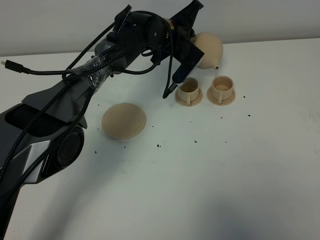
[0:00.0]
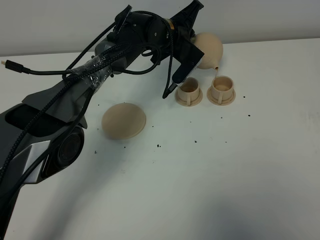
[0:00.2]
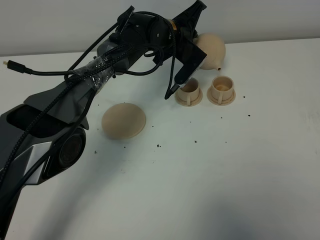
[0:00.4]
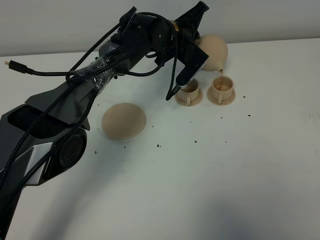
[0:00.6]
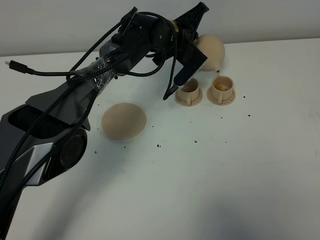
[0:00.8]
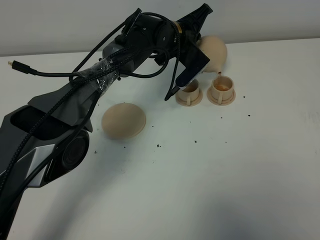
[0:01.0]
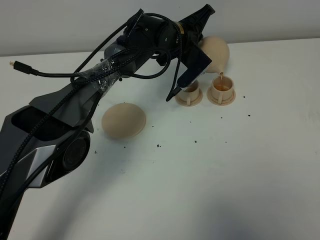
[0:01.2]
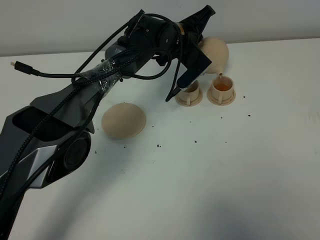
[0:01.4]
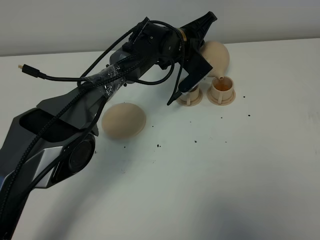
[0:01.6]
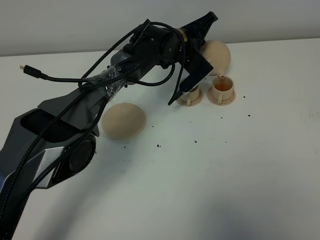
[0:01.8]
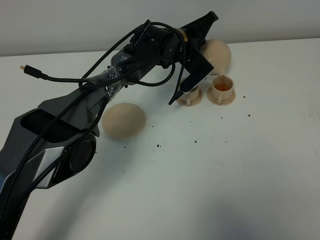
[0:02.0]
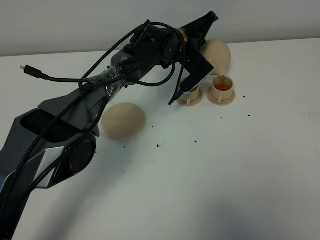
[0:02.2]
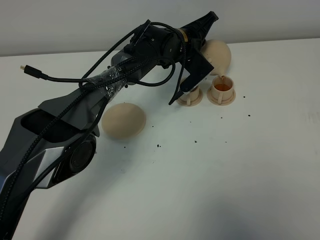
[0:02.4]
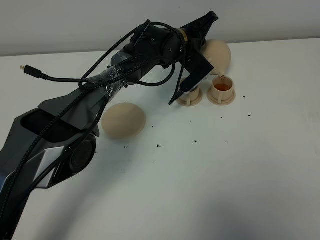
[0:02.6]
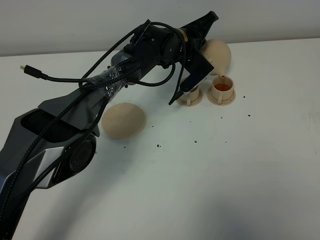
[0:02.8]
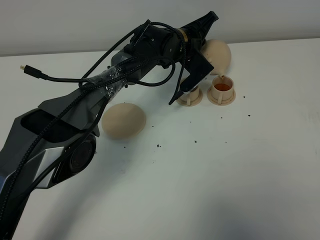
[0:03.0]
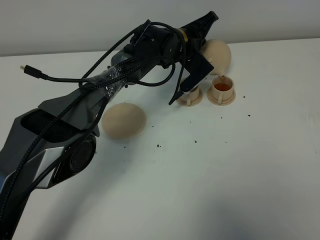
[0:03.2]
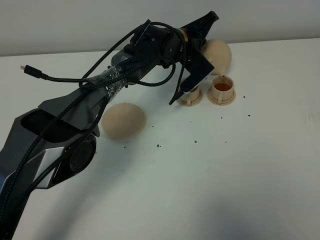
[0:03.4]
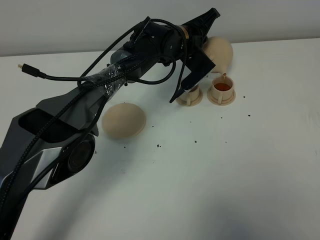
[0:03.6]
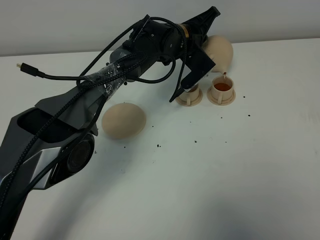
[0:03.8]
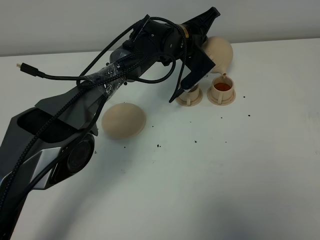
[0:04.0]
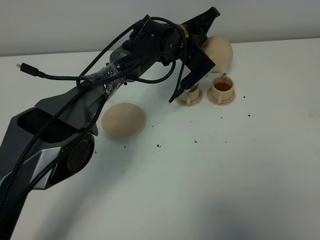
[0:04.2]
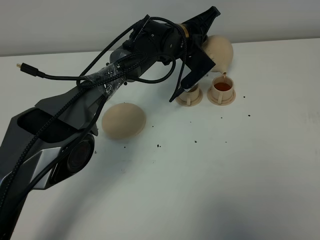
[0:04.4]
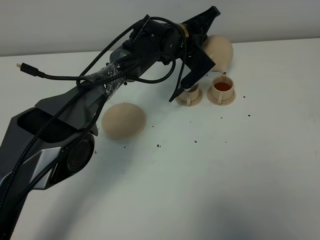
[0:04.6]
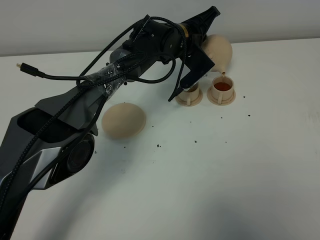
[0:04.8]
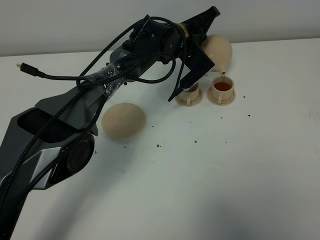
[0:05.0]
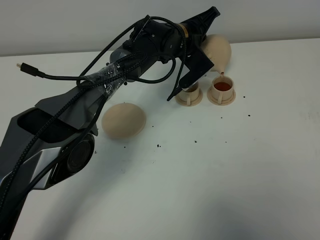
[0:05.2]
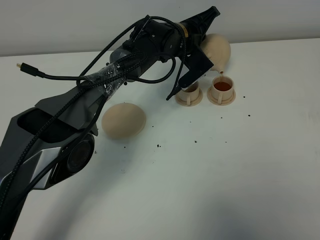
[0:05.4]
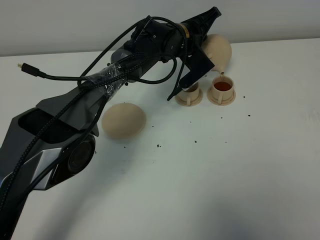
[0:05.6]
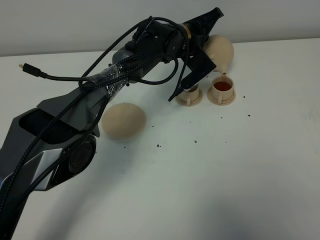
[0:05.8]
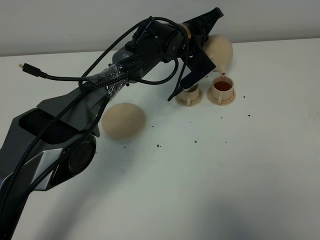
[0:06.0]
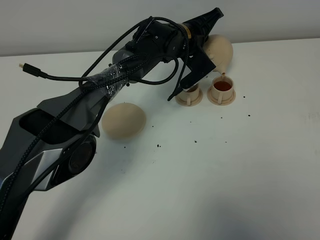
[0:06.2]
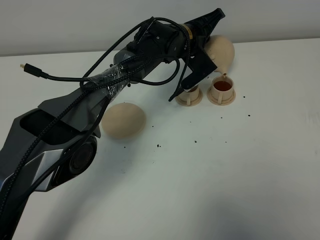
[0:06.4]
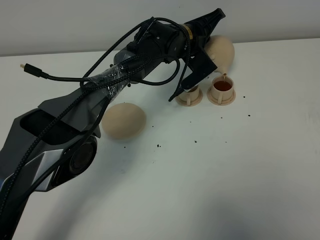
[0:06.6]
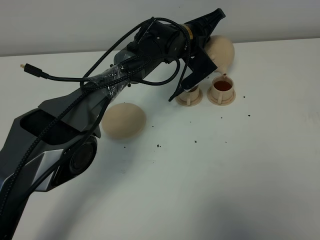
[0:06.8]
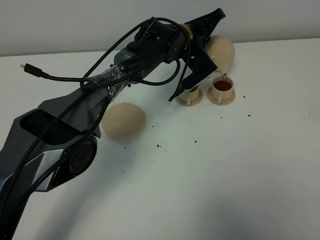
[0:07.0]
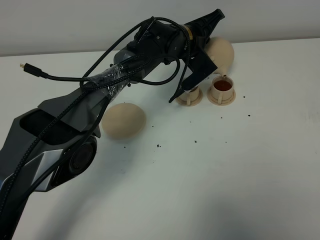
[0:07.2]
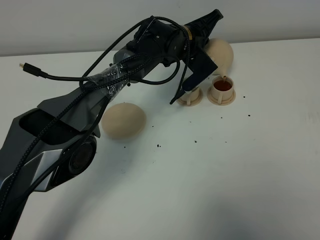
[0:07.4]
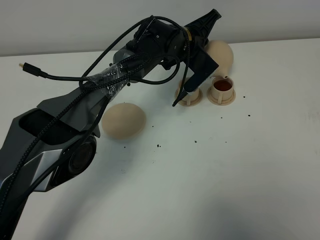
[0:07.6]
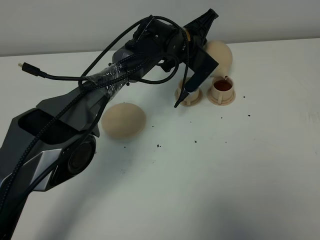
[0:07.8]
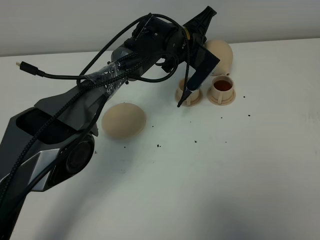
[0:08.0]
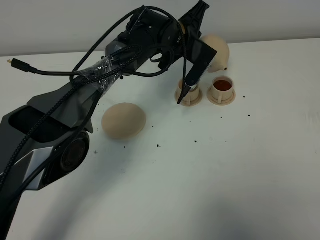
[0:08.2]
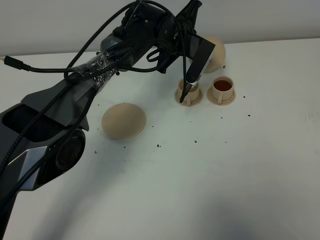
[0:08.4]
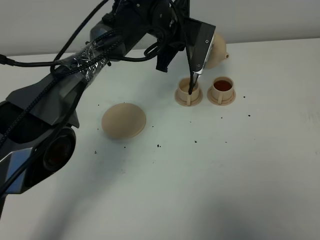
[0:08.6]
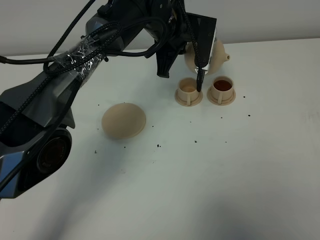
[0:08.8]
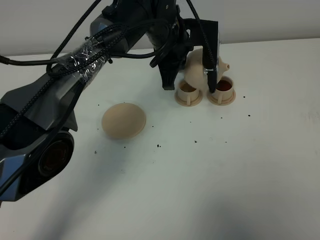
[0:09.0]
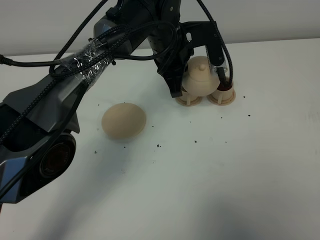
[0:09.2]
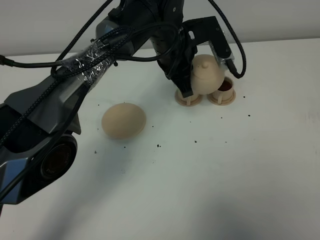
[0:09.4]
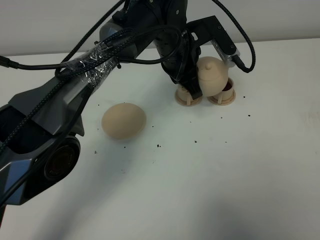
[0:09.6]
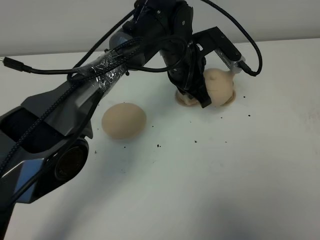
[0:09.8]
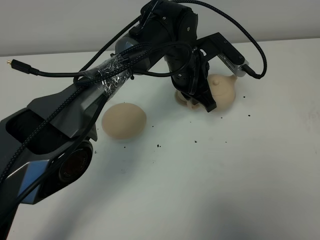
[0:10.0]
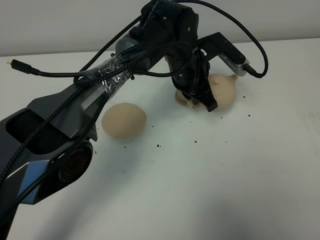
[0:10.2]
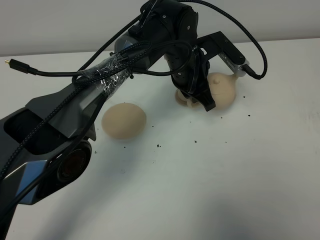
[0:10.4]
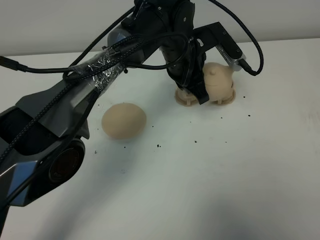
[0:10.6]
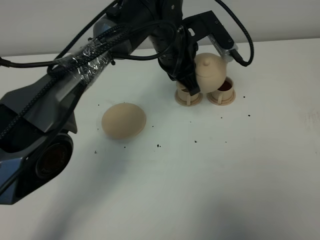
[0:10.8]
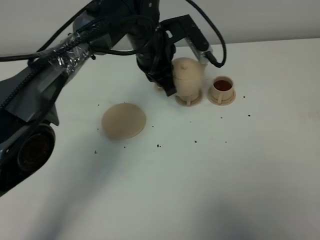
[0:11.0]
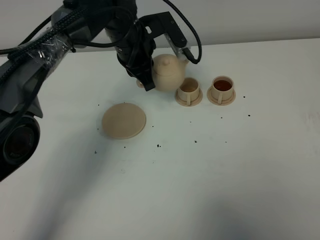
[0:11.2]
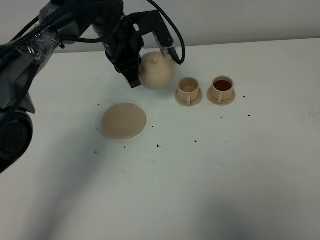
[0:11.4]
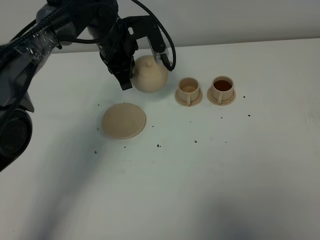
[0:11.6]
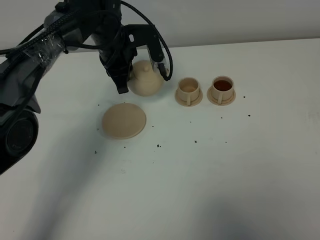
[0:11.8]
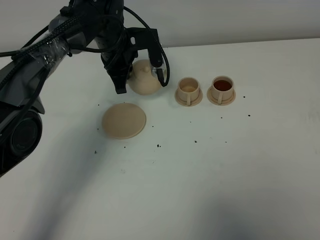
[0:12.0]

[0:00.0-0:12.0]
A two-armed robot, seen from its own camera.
Task of the whole recording: grasp the brown teapot and pour the tea into the two brown teacups one by one, put the brown teapot back in its original place.
0:00.0 to 0:01.6: The grippers make only small movements.
0:01.6 to 0:04.4: The two grippers keep their place.
0:04.4 to 0:06.0: Both grippers stay about where they are.
0:06.0 to 0:07.6: The grippers stay close to where they were, moving slightly.
0:07.6 to 0:09.0: The left gripper shifts approximately 10 cm upward and backward.
0:09.0 to 0:10.4: The left gripper shifts by some 5 cm.
0:10.4 to 0:12.0: The left gripper goes about 15 cm to the left and forward.

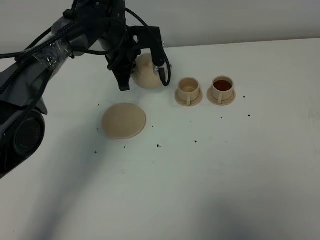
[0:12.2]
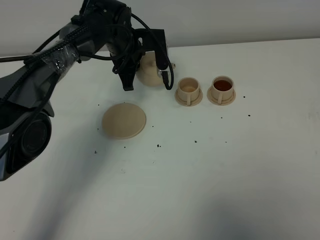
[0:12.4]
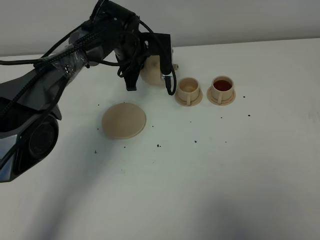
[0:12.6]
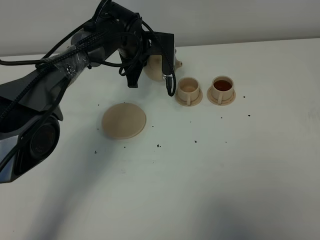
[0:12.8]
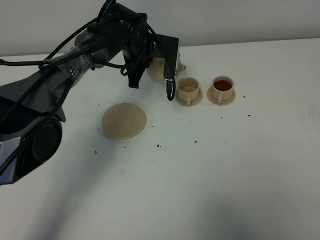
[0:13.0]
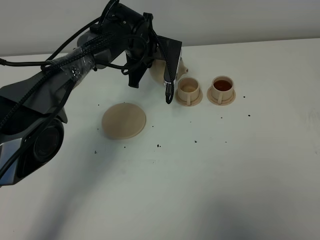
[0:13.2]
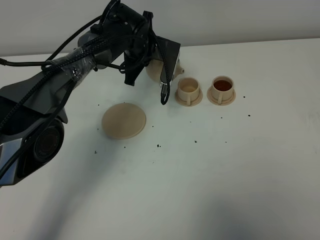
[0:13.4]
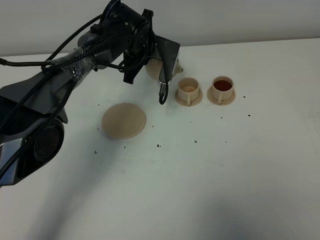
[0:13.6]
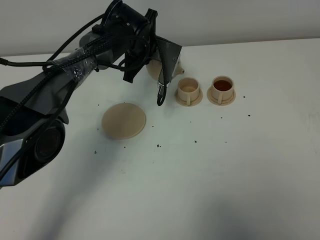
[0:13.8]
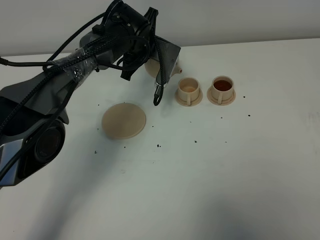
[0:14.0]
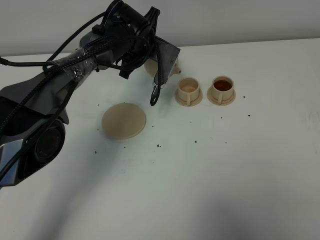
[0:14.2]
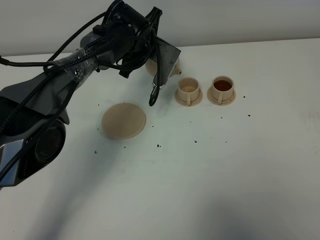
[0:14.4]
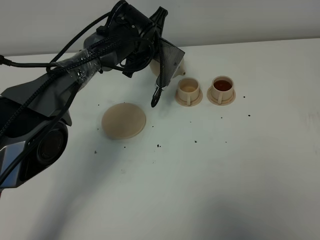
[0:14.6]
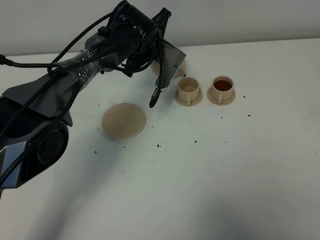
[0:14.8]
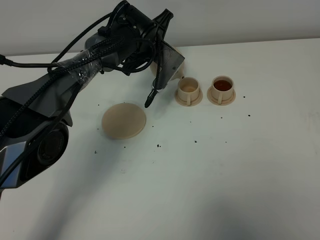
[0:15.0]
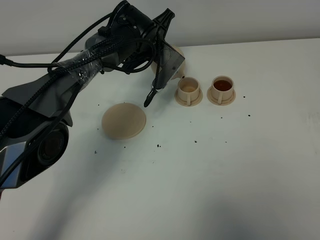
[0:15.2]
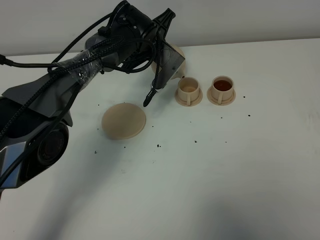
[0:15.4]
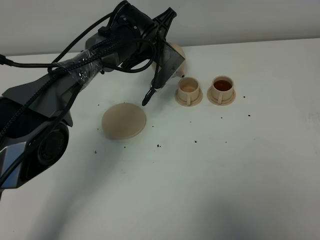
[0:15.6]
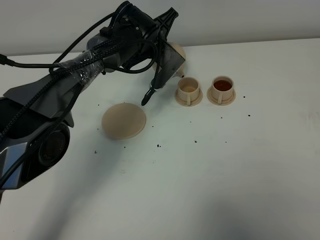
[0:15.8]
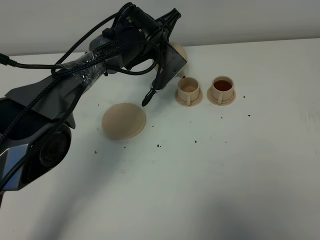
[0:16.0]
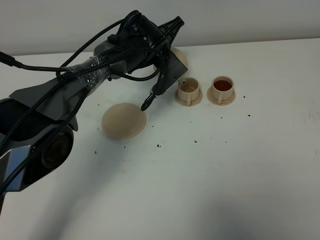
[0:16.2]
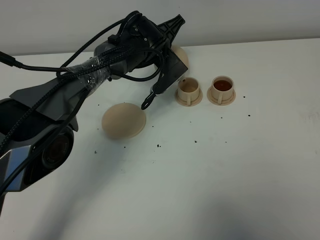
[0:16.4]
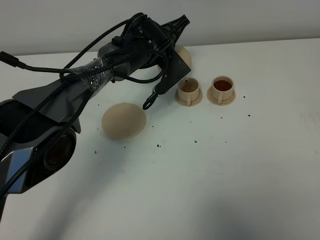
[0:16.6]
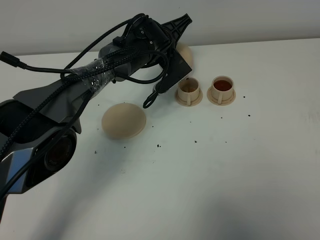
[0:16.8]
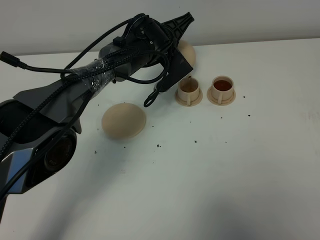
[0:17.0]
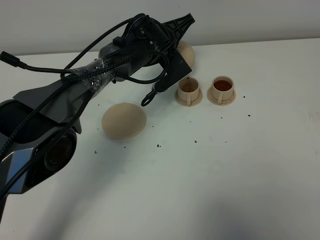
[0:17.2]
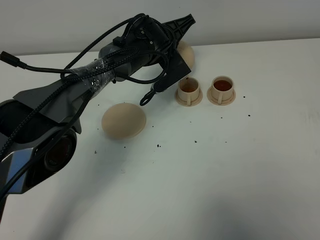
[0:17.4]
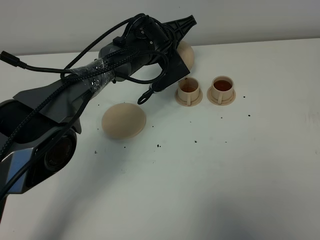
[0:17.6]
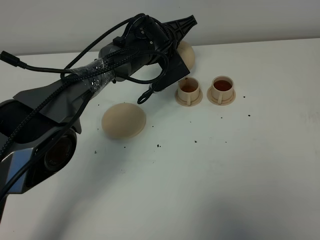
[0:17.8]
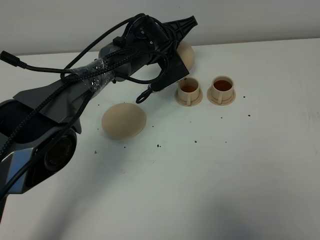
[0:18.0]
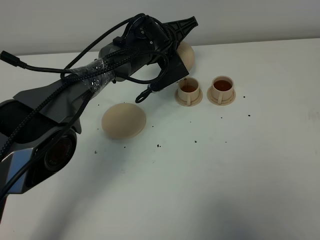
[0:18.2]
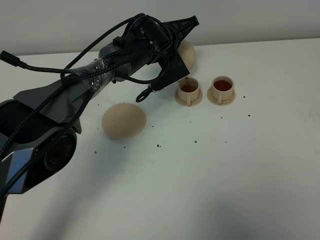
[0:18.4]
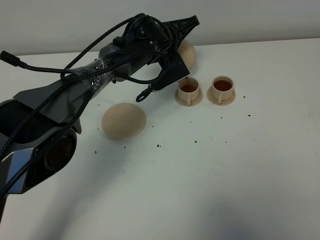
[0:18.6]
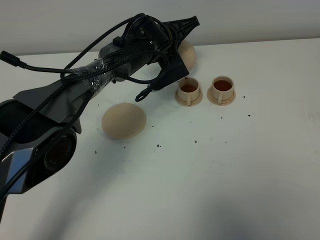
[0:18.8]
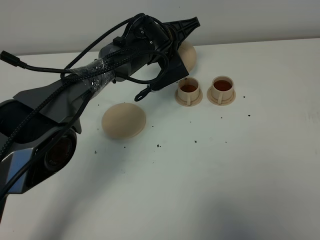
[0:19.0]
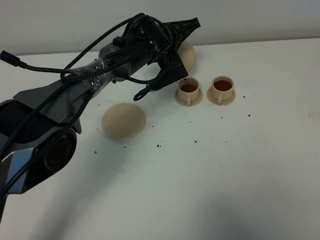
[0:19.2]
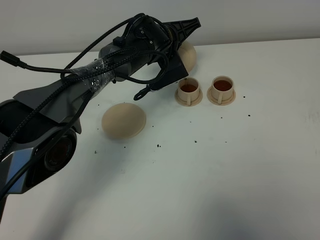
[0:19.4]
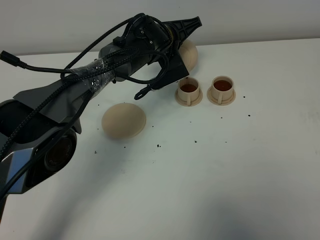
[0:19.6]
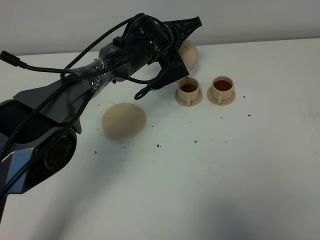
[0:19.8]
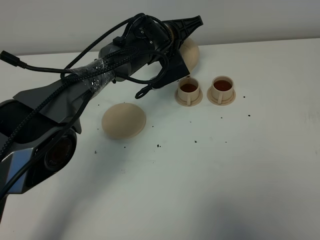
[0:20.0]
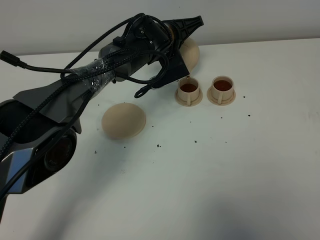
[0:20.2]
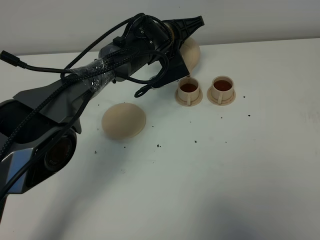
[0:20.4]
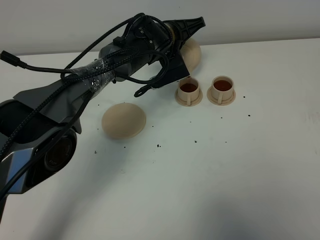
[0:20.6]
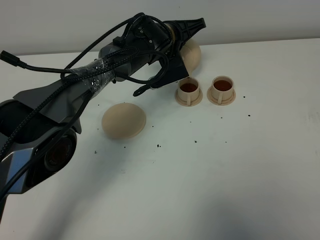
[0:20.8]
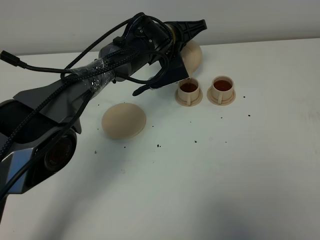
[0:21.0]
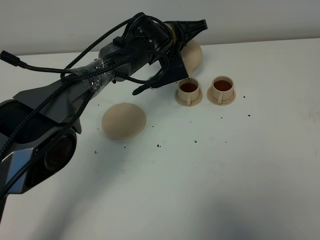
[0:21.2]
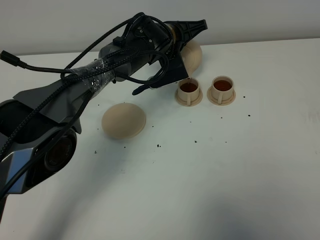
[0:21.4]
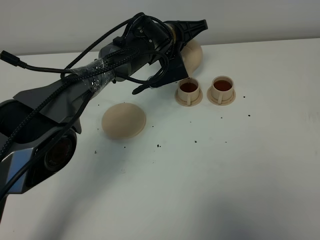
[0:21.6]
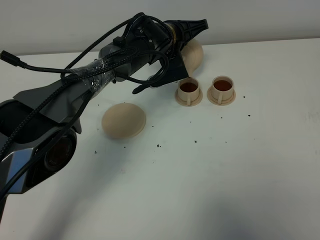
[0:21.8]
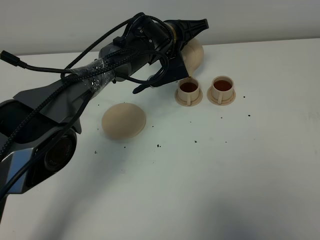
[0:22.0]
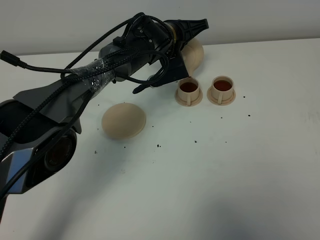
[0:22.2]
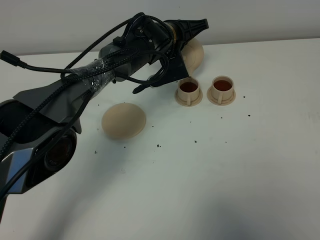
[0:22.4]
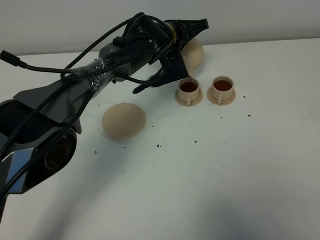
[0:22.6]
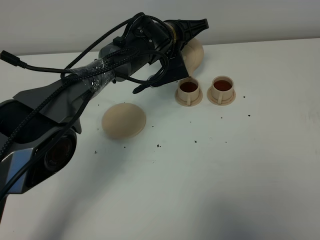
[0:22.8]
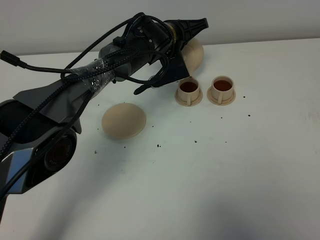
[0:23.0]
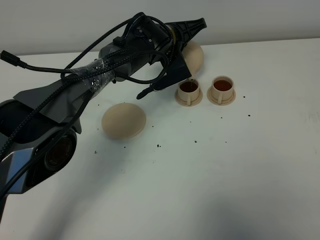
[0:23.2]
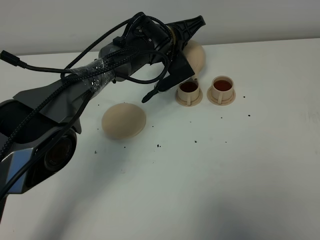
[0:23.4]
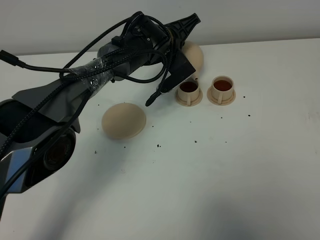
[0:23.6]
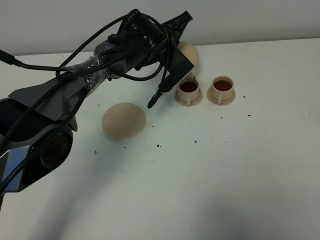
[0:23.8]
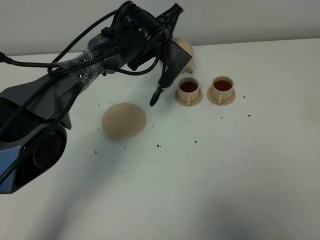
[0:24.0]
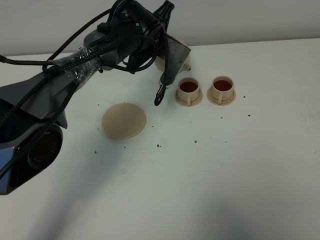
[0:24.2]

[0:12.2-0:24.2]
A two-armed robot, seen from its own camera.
Task of the whole recording: grasp the brown teapot and pour the tea into the two brown teacups one by one, put the brown teapot back in its original place.
Step, 0:12.2 to 0:24.0: Pour tea into the teacup with the left gripper.
0:13.8 to 0:15.2: The grippers make only small movements.
0:15.2 to 0:16.6: The grippers make only small movements.
0:16.6 to 0:18.2: The grippers move only a little.
0:18.2 to 0:19.8: Both grippers stay about where they are.
0:19.8 to 0:21.2: The grippers make only small movements.
0:21.2 to 0:22.6: Both grippers stay about where they are.
